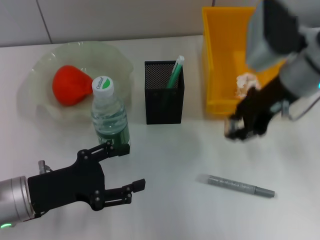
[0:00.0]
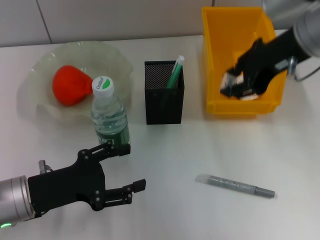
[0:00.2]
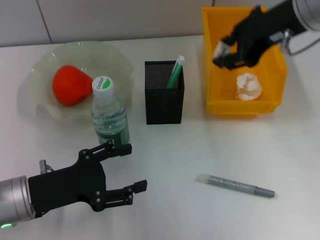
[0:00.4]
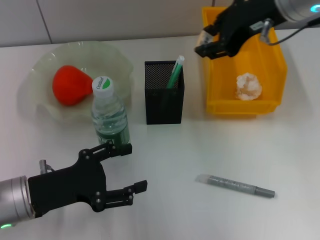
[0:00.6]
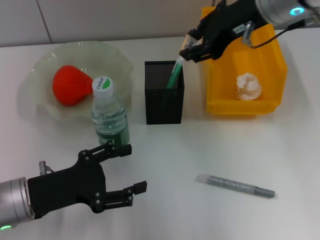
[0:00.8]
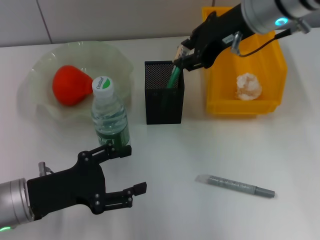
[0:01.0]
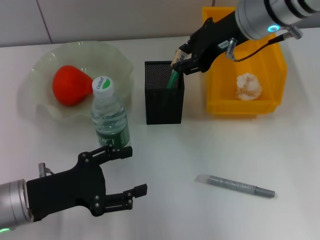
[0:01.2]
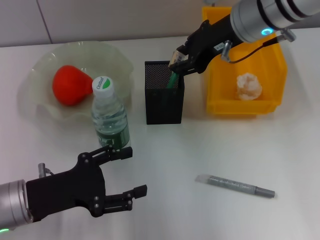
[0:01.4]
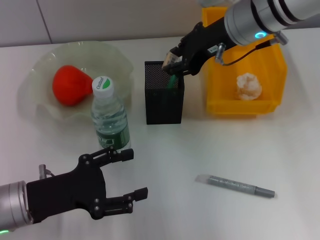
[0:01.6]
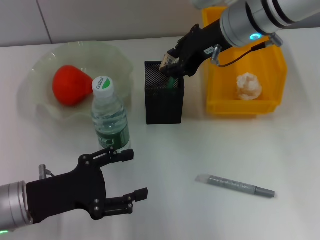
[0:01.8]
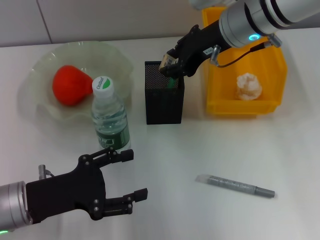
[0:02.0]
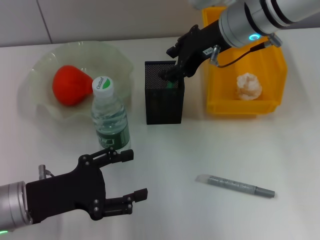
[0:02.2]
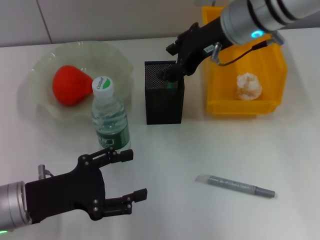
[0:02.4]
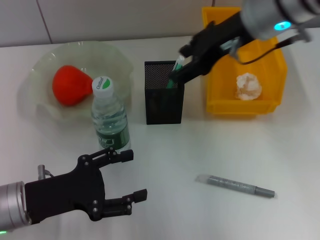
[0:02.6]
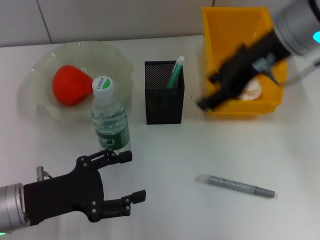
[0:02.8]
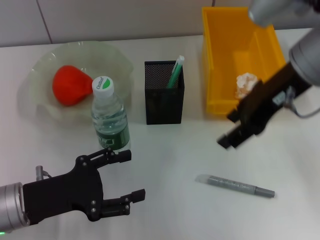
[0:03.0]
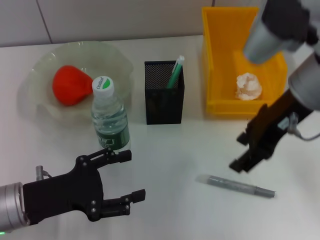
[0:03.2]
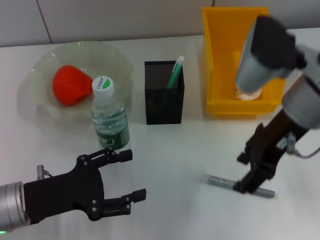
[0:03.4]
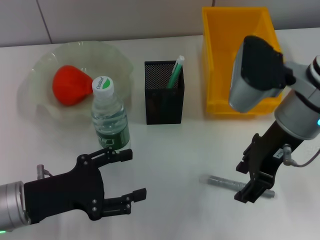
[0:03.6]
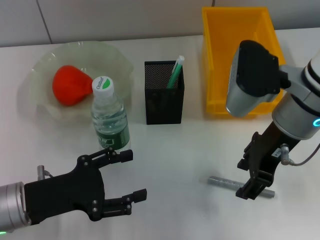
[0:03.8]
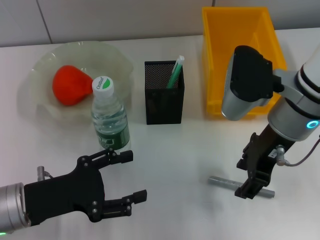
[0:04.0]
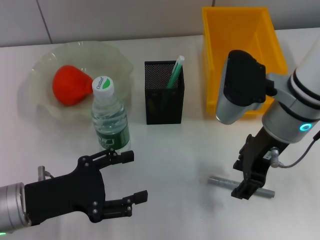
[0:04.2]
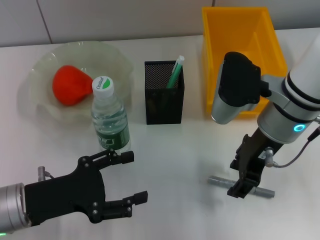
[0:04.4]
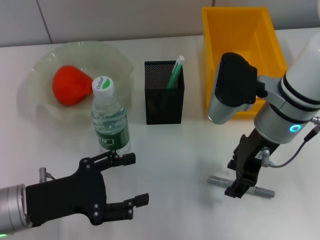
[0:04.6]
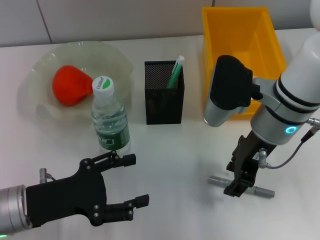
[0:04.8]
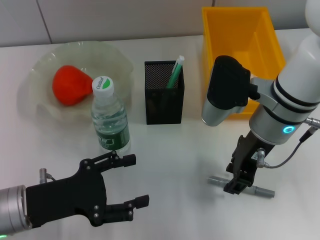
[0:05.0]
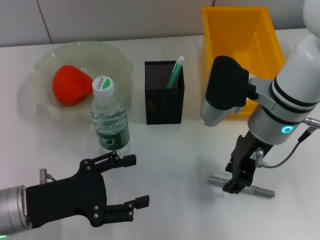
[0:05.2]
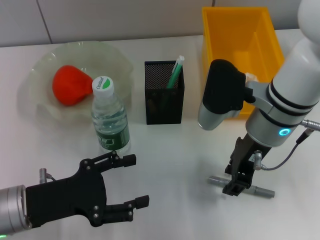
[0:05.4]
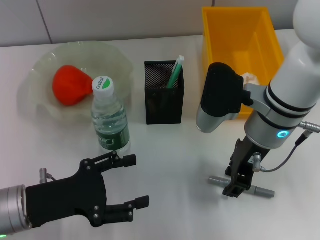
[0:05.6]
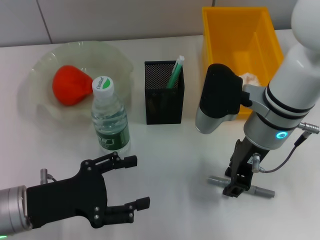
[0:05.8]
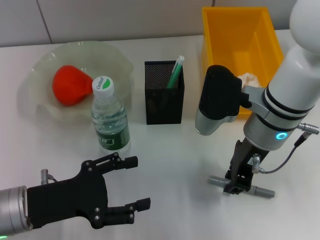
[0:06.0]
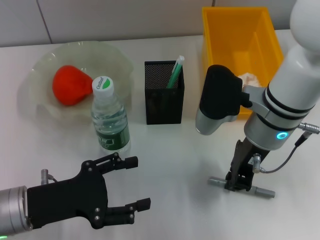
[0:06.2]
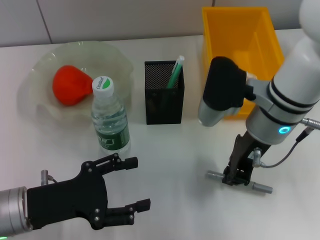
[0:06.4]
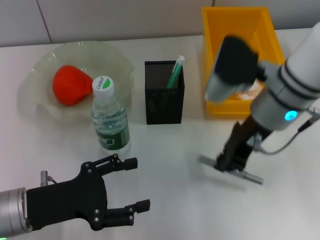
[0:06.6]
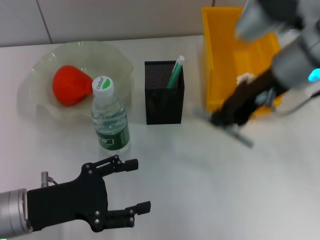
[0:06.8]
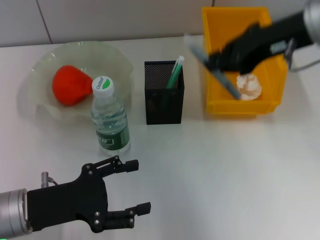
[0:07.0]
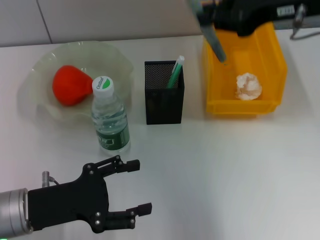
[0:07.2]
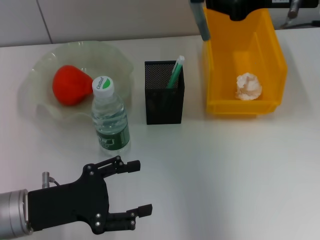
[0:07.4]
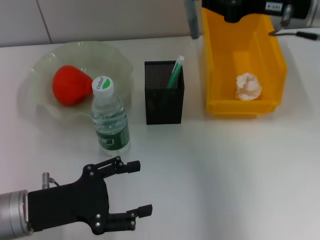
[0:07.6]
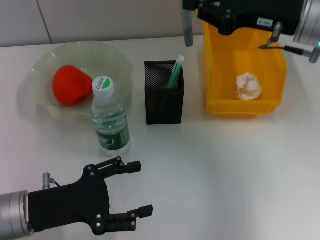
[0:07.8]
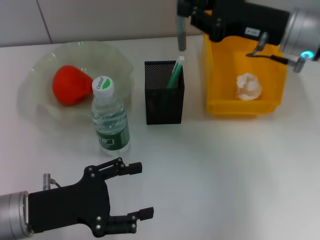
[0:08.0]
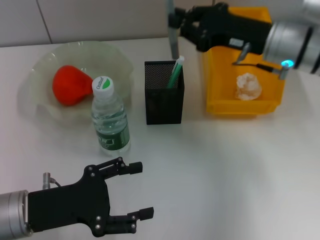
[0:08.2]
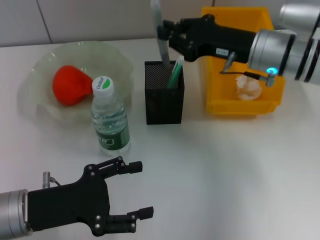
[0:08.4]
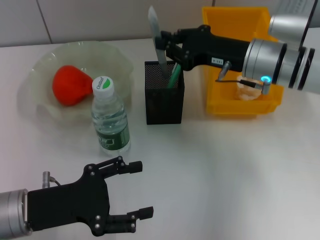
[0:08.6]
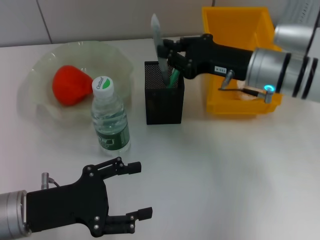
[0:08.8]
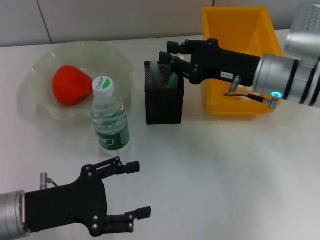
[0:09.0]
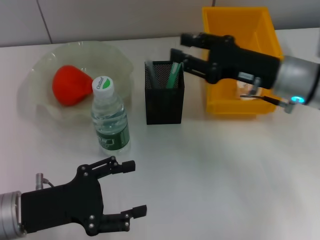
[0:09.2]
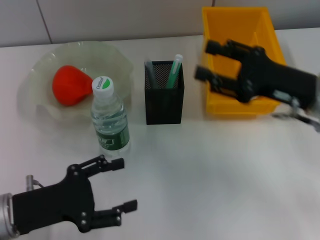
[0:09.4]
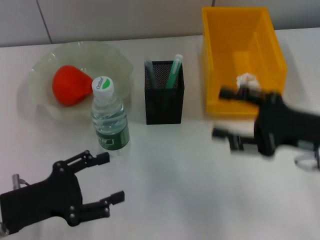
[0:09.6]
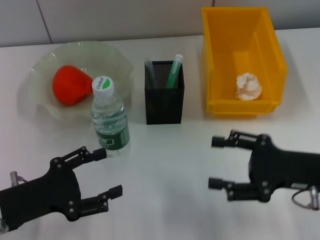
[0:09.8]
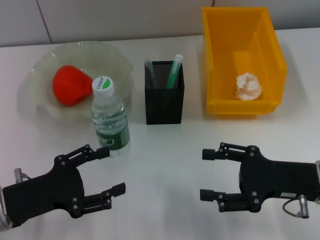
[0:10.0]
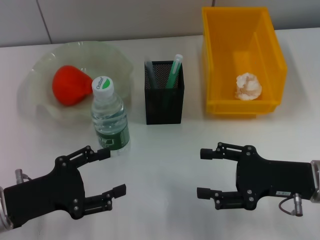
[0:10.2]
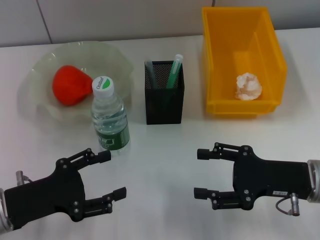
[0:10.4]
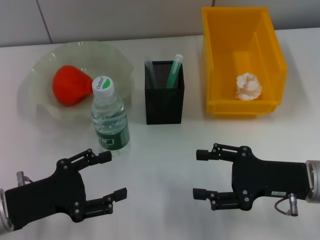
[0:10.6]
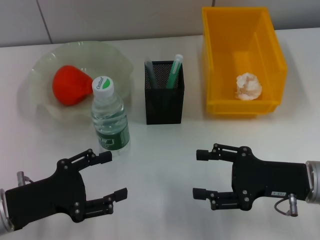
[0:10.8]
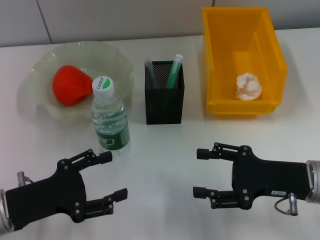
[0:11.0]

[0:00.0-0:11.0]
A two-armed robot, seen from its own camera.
Step, 0:00.0 to 0:02.2: Put the eraser into the pen holder with the right hand.
Step, 0:02.6 to 0:06.0: Grab the gray glue with the right hand.
Step, 0:06.2 to 0:09.2: Place the gray glue into the pen holder with the right hand.
0:00.0 to 0:01.6: The right gripper is displaced forward and to the left by some 10 cm.
0:01.6 to 0:03.2: The right gripper shifts some 10 cm backward, and opens.
0:03.2 to 0:04.8: The right gripper moves downward, about 5 cm.
0:04.8 to 0:06.2: The right gripper closes.
0:06.2 to 0:07.8: The right gripper moves to the right and upward, roughly 10 cm.
0:07.8 to 0:09.4: The right gripper is displaced downward and backward by approximately 10 cm, and opens up.
0:09.4 to 0:11.0: The right gripper goes some 10 cm downward and backward.
